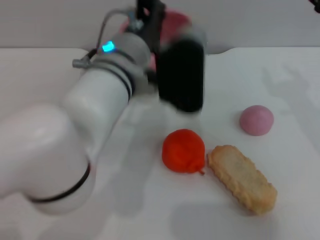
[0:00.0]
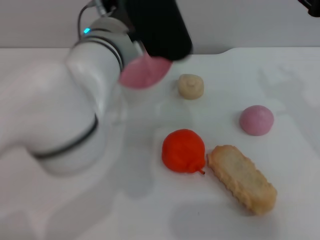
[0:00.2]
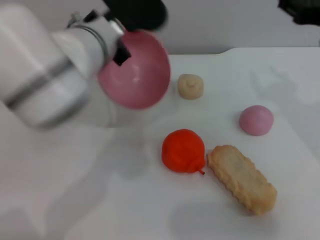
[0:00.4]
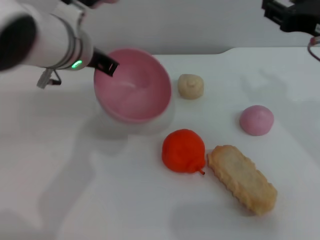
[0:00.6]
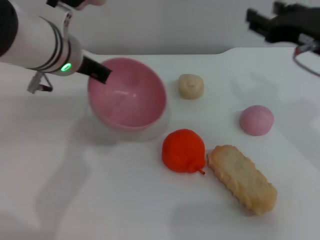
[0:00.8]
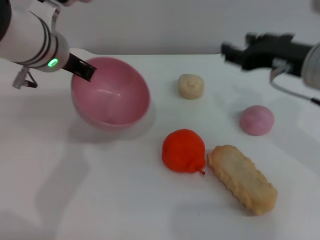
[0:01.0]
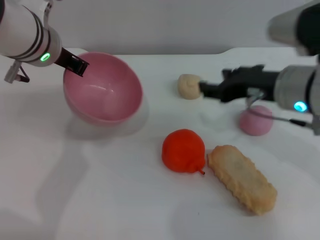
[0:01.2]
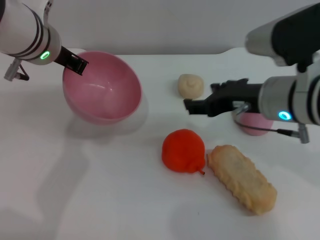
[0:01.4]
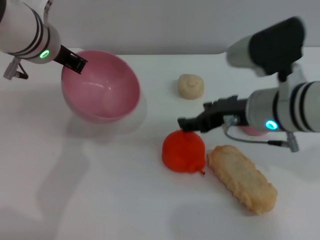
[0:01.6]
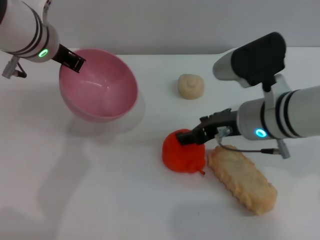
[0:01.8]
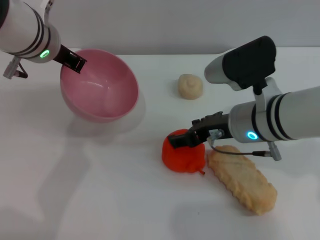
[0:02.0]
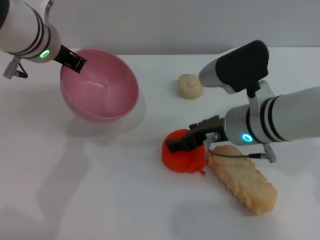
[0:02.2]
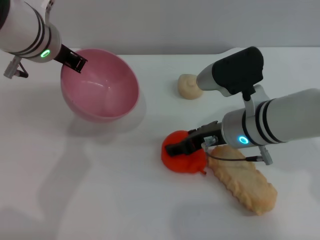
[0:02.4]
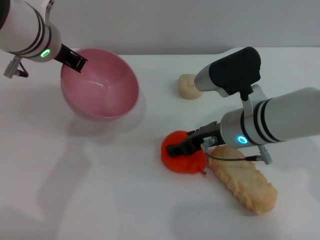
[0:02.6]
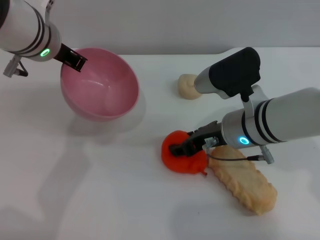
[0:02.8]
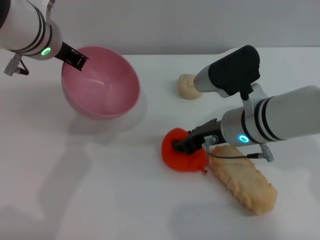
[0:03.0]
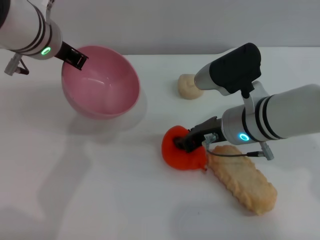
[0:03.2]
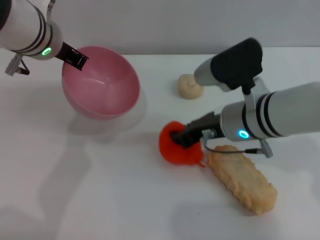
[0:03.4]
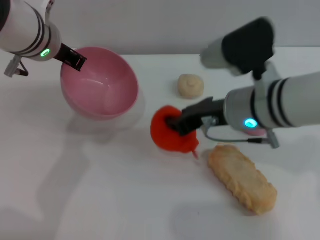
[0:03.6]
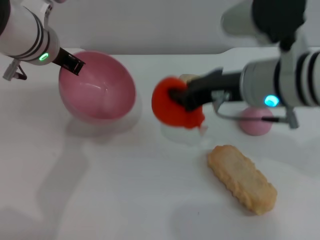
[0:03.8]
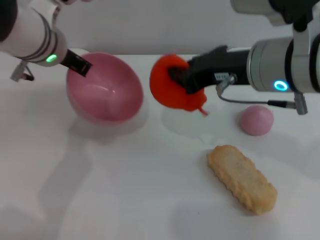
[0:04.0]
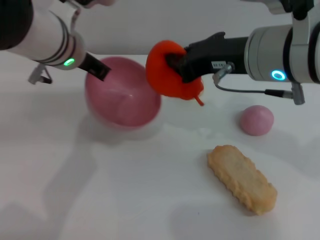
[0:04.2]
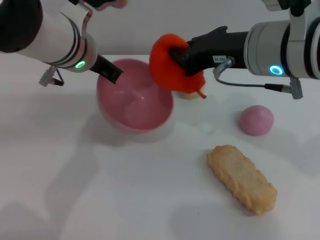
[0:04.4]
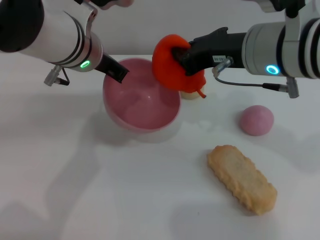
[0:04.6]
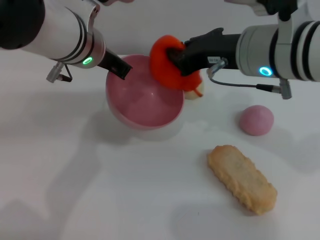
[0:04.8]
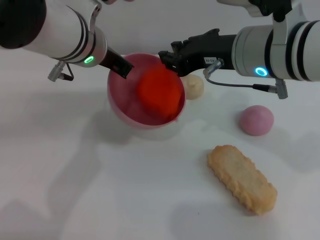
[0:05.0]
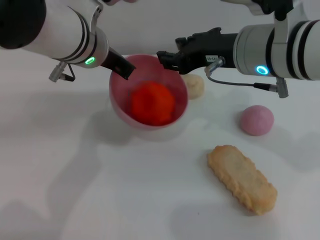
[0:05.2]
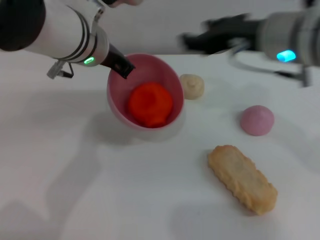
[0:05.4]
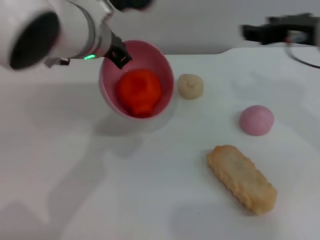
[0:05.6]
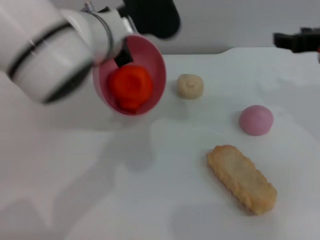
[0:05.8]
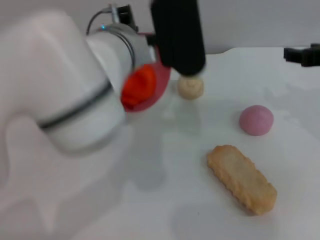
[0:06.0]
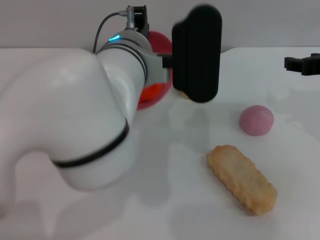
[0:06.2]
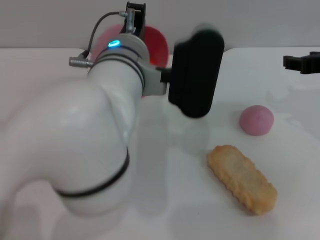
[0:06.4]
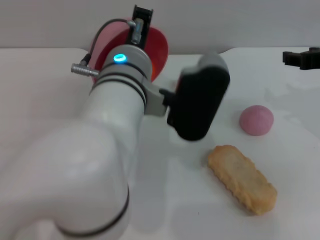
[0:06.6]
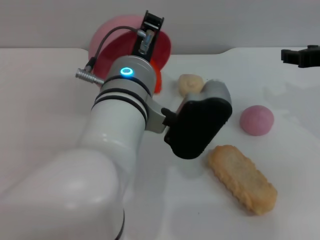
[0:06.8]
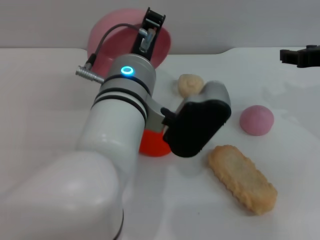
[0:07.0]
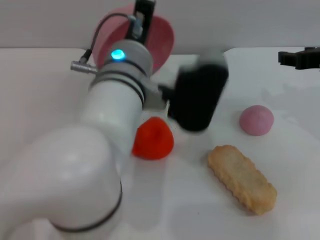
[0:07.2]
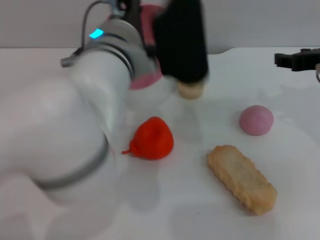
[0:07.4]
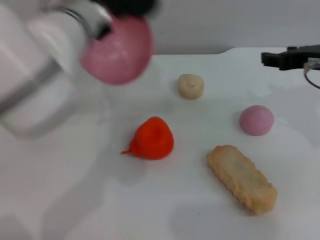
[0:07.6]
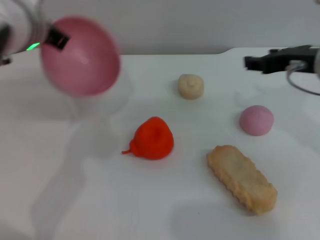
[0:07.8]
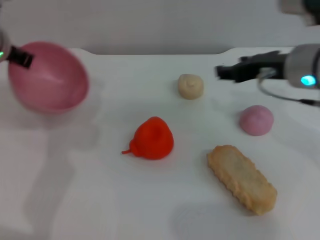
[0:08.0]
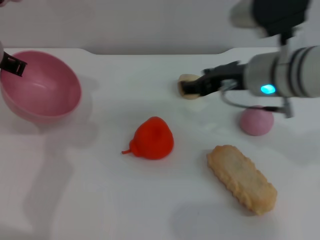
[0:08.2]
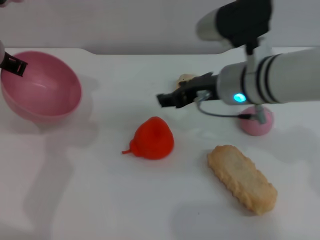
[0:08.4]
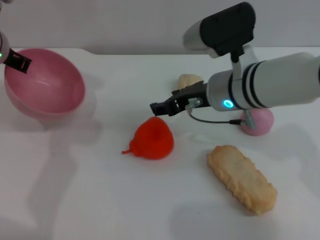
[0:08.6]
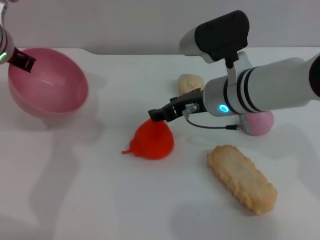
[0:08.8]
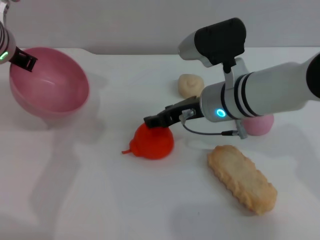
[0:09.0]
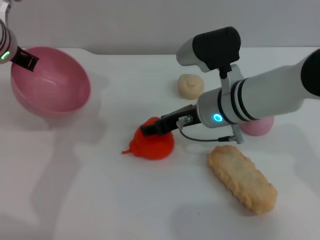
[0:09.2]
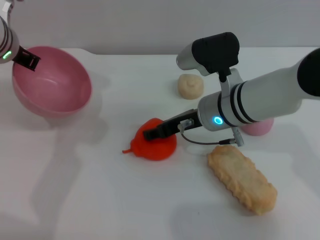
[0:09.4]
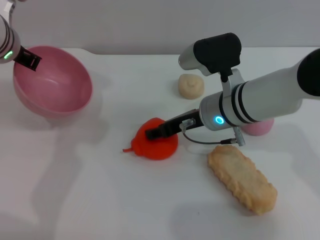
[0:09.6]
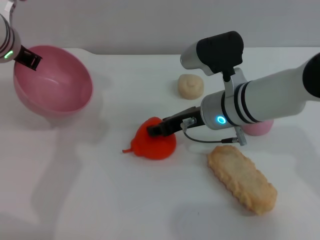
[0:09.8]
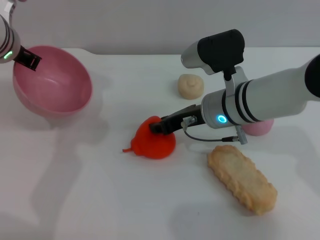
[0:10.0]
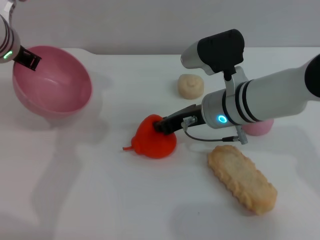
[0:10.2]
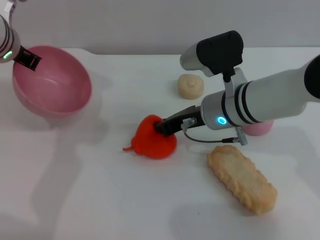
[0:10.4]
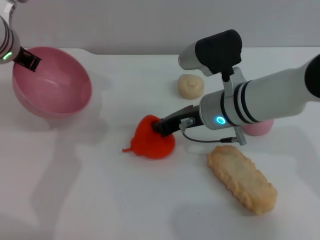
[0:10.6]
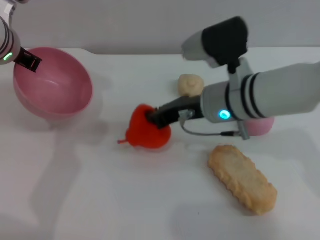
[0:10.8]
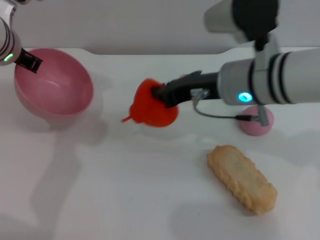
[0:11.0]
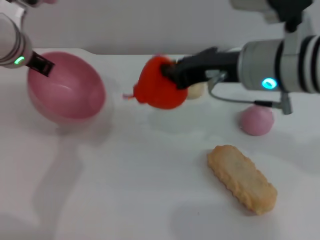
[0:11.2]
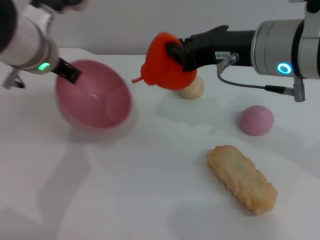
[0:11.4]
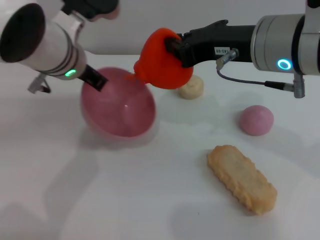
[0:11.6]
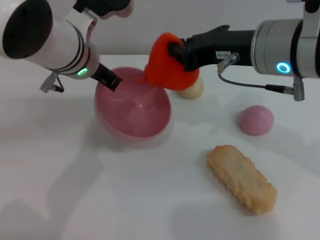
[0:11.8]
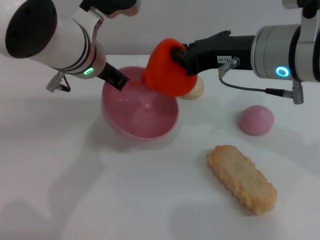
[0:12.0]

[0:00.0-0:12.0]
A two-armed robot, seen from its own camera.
Task of the whole recording: put the orange into the pink bowl and pour it out repeatedly.
Step, 0:00.0 to 0:03.6: Pick up the orange with the right gripper.
Step, 0:03.8 to 0:05.2: Place the orange into the bowl.
Step, 0:05.4 to 0:07.0: Pour the orange out of the bowl.
Step, 0:07.2 to 0:10.8: Pick up the orange with the right gripper.
0:00.0 to 0:01.6: The right gripper goes some 15 cm to the left and downward, while the left gripper moves to the left and forward, some 10 cm.
0:01.6 to 0:03.0: The right gripper changes place by some 5 cm.
0:03.0 to 0:04.4: The right gripper shifts approximately 15 cm upward, and closes its fingers.
0:04.4 to 0:06.0: The right gripper goes roughly 15 cm to the right, and opens up. The left gripper shifts roughly 5 cm to the right.
0:06.0 to 0:07.6: The left gripper changes place by approximately 5 cm.
0:07.6 to 0:09.0: The right gripper is displaced to the left and downward by about 15 cm. Meanwhile the left gripper moves to the left, some 10 cm.
0:09.0 to 0:10.4: The right gripper closes up.
0:10.4 to 0:12.0: The right gripper travels upward by approximately 15 cm; the left gripper is displaced to the right by roughly 10 cm.

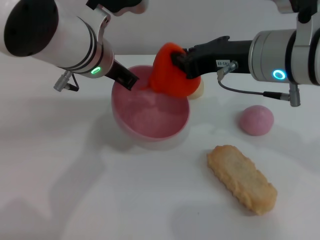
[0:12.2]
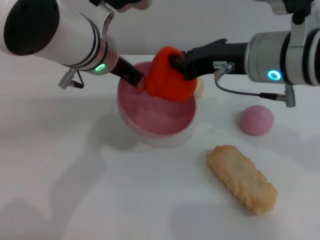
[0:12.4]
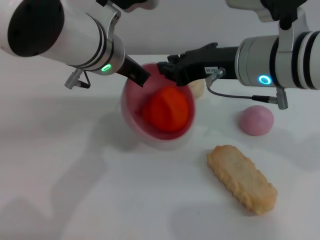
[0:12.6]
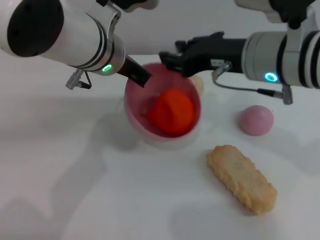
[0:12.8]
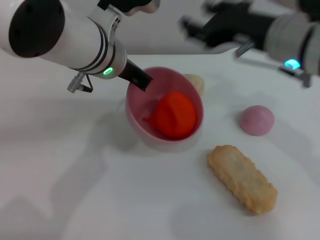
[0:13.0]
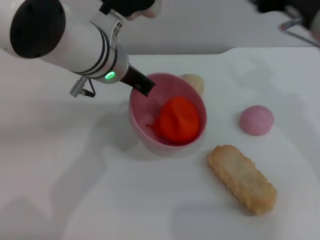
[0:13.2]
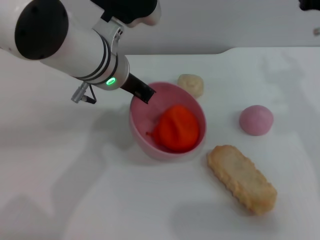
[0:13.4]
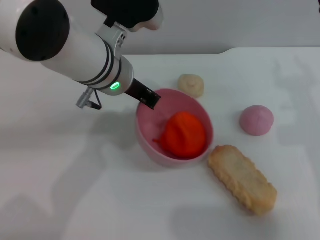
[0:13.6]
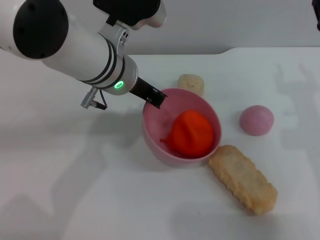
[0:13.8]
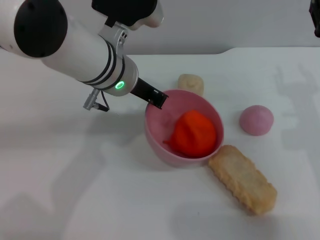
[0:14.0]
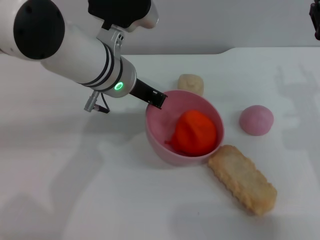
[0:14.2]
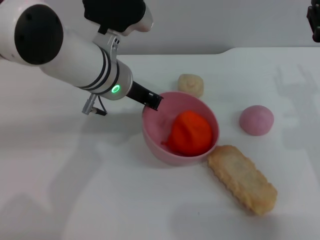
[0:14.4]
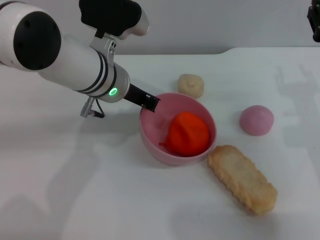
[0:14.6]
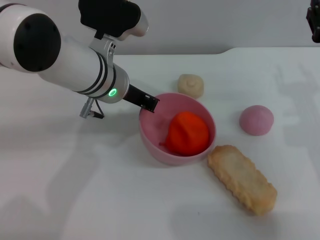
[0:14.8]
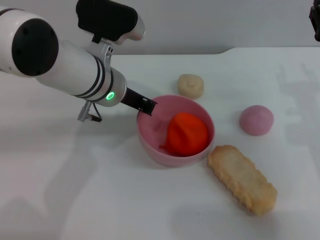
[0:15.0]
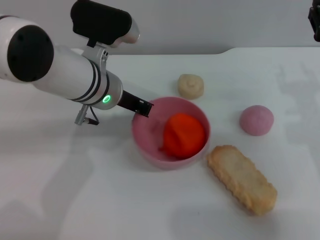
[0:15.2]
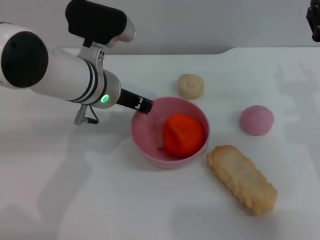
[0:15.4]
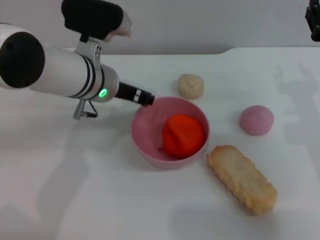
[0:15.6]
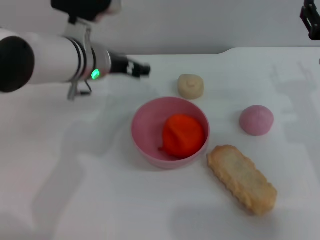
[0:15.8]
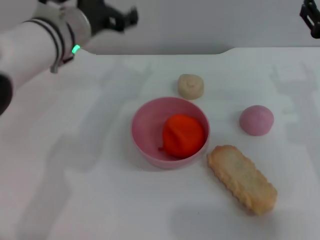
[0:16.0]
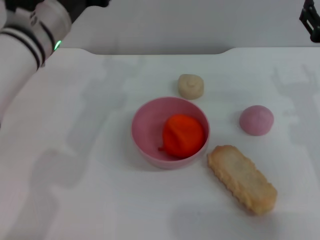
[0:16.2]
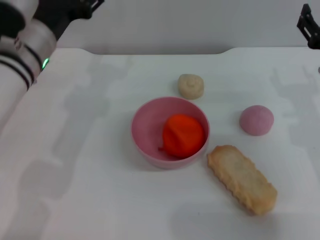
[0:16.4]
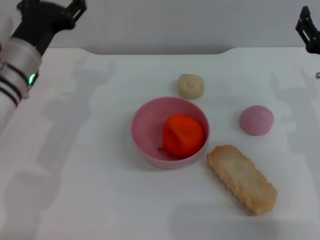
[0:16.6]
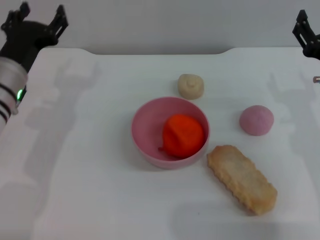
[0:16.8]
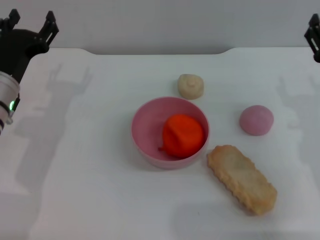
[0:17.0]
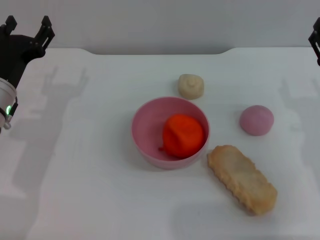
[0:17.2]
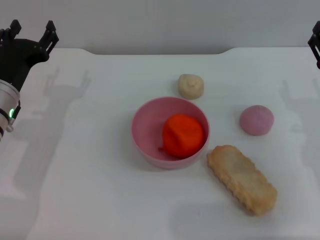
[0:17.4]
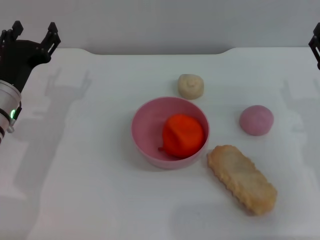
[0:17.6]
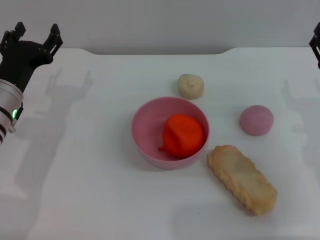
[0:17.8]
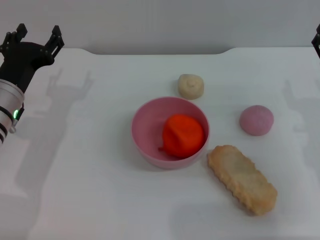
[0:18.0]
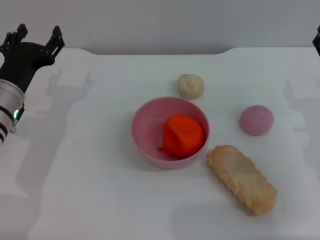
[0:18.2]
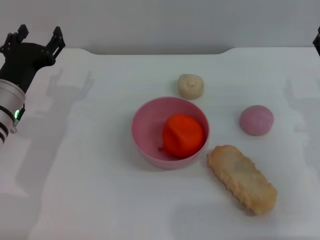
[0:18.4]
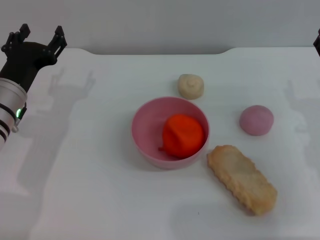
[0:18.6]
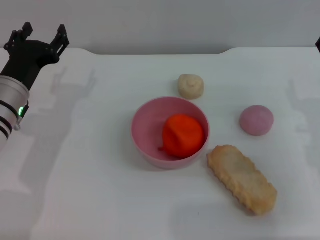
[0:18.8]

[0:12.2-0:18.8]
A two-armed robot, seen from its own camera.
Task of the whole recording: put the orange into the pink bowl and pour it out repeatedly.
Step, 0:13.2 to 0:15.6: Place the bowl on the table.
0:12.2 to 0:13.8: The right gripper heads to the right and downward, covering about 15 cm, and opens.
0:13.8 to 0:15.4: The left gripper ends up approximately 5 cm from where it was.
0:15.4 to 0:17.2: The left gripper heads to the left and downward, covering approximately 15 cm, and opens. The right gripper moves approximately 5 cm.
0:17.2 to 0:18.8: The two grippers keep their place.

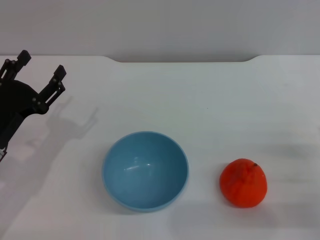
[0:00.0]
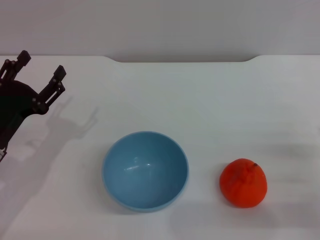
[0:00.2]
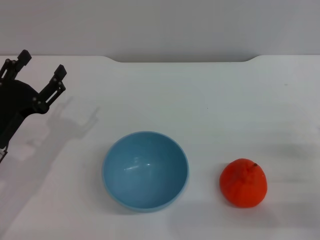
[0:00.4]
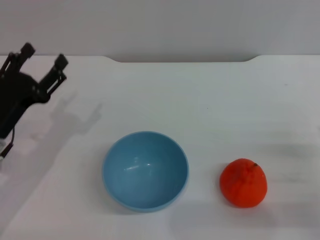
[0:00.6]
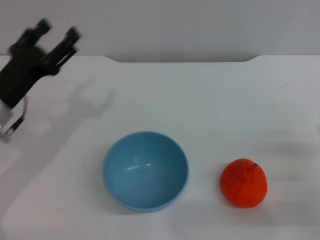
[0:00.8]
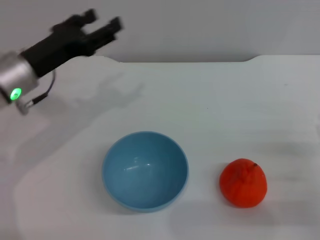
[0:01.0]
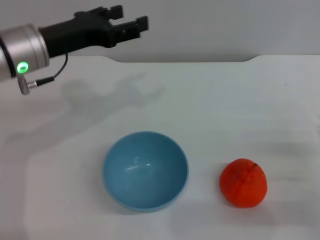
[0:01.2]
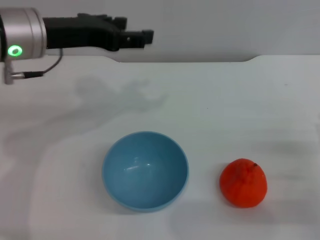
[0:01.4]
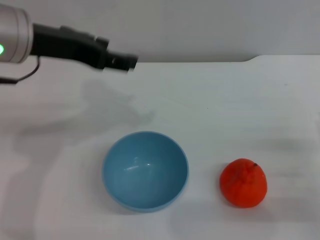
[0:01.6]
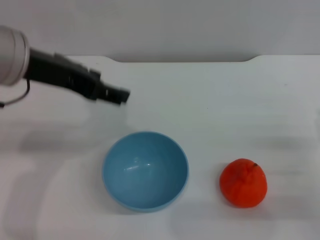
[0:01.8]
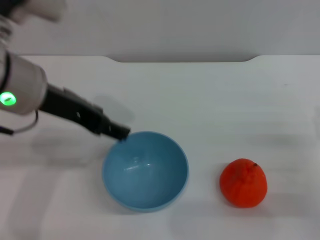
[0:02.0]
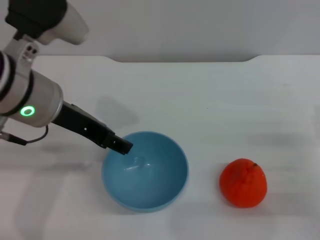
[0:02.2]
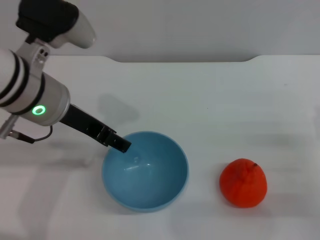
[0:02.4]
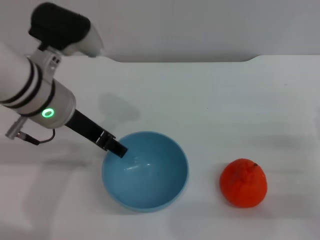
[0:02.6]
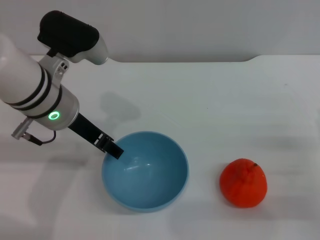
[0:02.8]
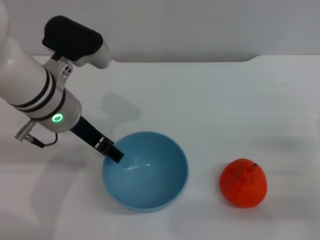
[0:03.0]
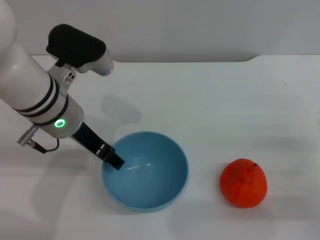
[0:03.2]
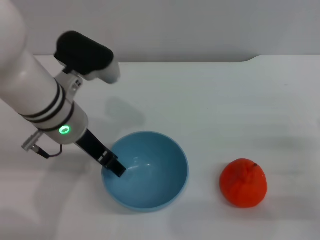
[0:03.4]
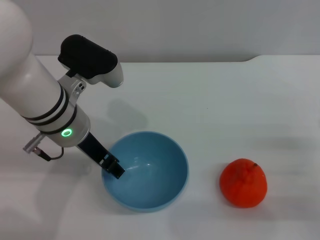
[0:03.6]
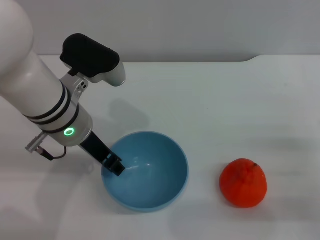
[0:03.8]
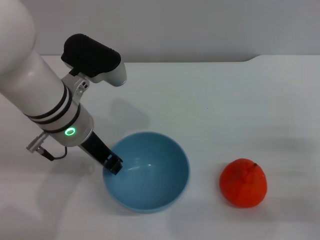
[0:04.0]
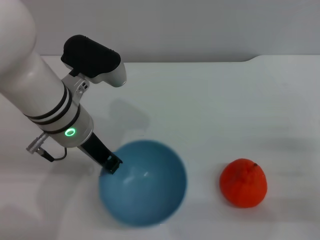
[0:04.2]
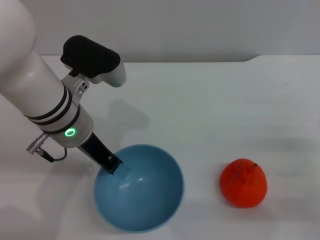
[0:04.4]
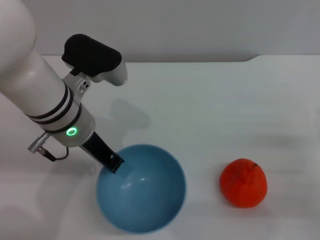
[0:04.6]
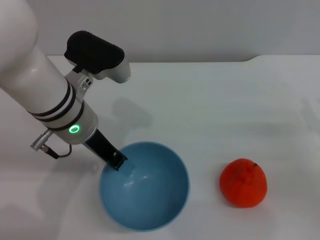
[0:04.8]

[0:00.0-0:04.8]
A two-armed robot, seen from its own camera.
Task of the whole recording: put the orange into the blue bowl and pour it out repeatedly.
0:00.0 to 0:01.6: The left gripper heads upward, covering about 20 cm.
0:01.6 to 0:03.2: The left gripper moves downward, roughly 10 cm.
0:03.2 to 0:04.8: The left gripper closes its fingers.
